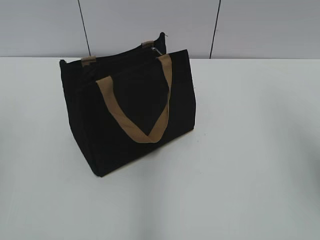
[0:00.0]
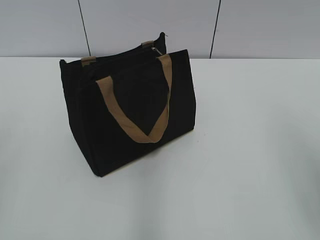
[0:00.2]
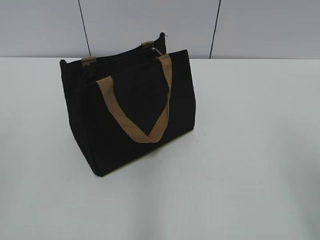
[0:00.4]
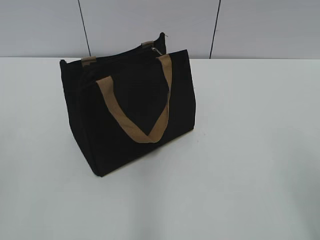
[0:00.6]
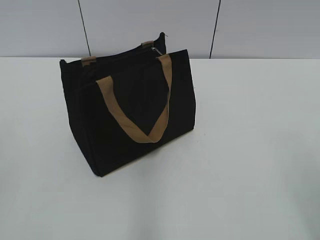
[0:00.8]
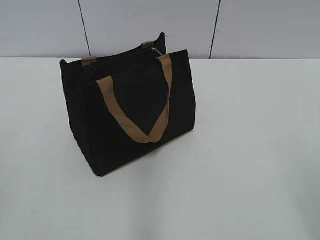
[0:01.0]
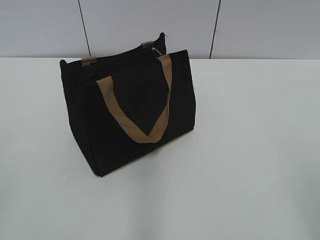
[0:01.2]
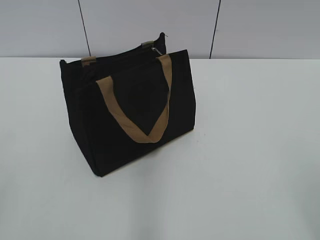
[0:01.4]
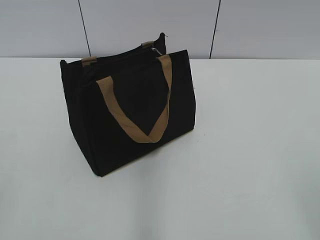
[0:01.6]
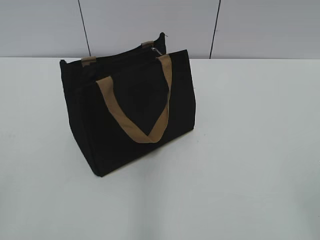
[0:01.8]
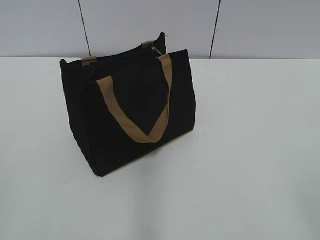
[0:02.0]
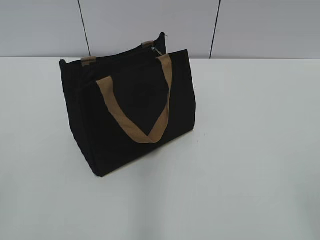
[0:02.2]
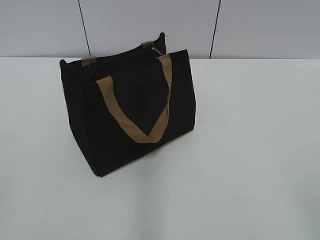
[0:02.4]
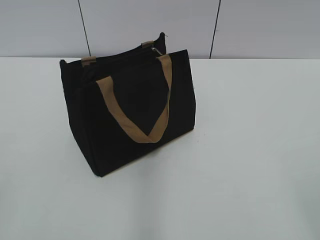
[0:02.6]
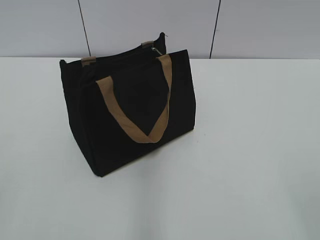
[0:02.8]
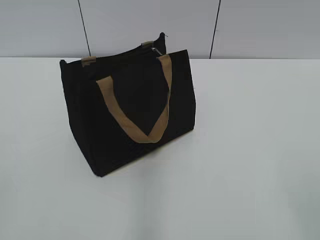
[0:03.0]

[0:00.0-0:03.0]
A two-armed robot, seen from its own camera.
0:00.0 to 0:01.6: The right gripper moves backward and downward, about 20 cm.
